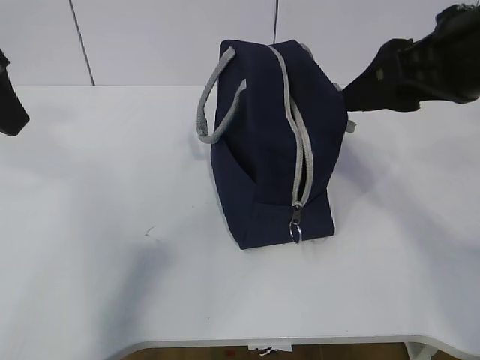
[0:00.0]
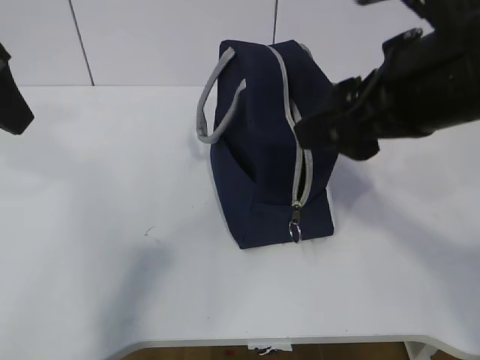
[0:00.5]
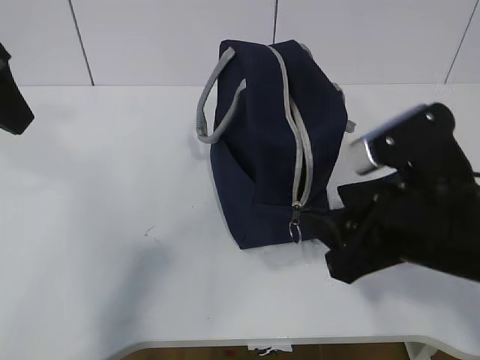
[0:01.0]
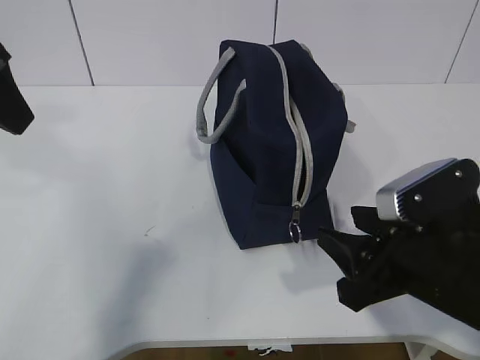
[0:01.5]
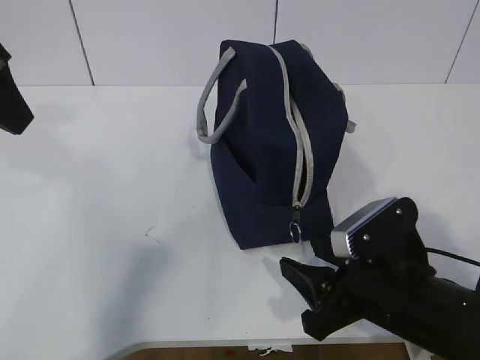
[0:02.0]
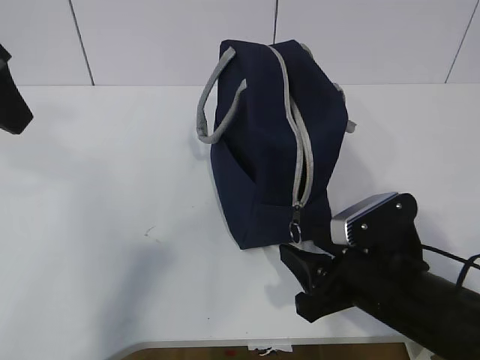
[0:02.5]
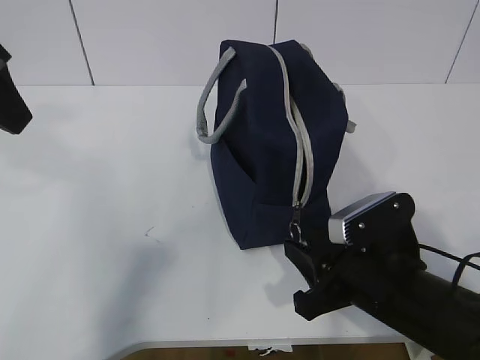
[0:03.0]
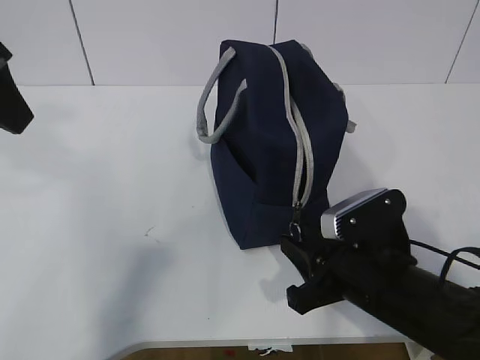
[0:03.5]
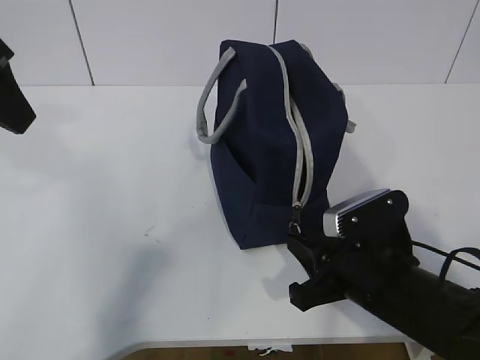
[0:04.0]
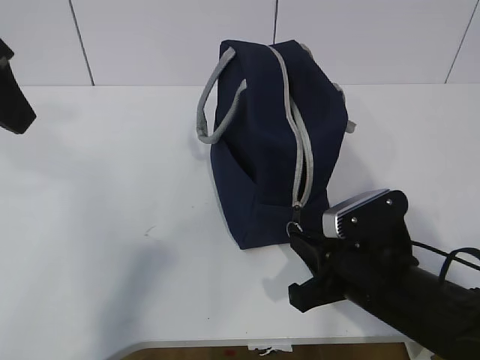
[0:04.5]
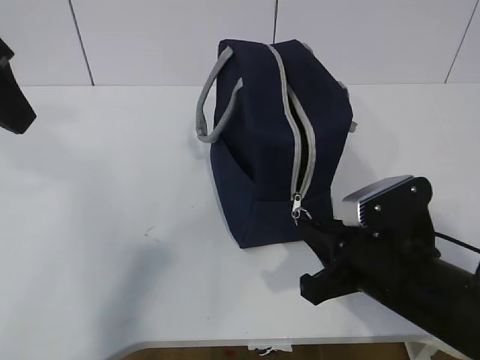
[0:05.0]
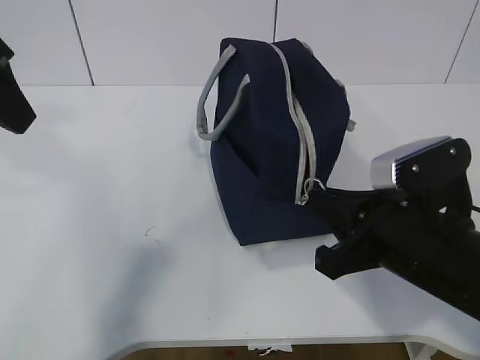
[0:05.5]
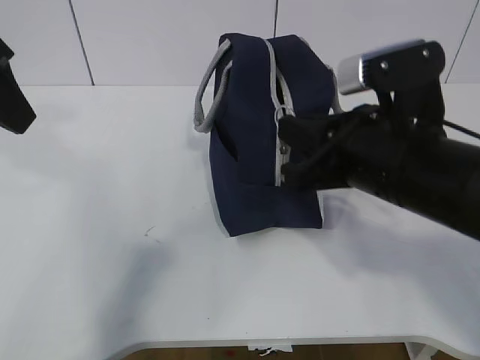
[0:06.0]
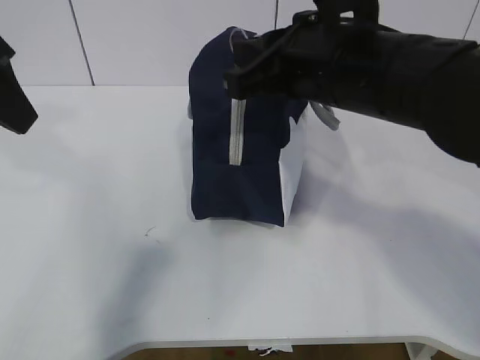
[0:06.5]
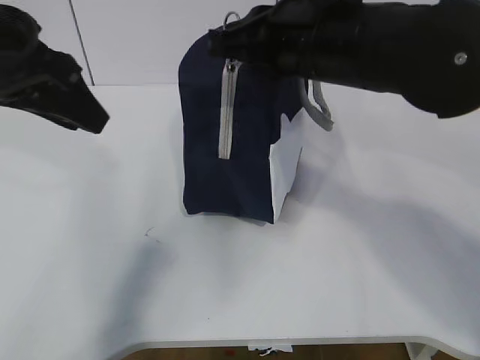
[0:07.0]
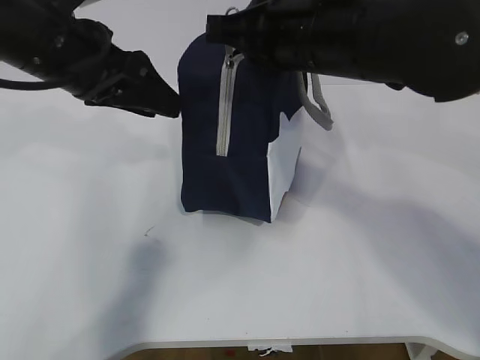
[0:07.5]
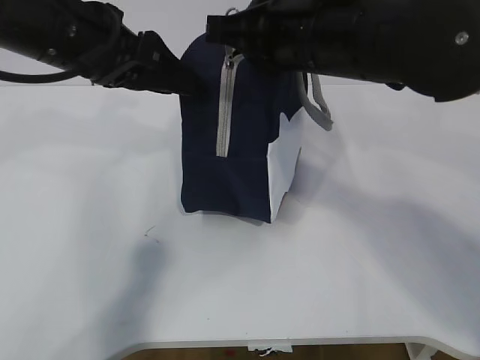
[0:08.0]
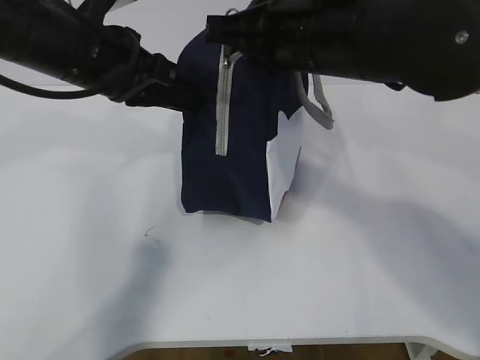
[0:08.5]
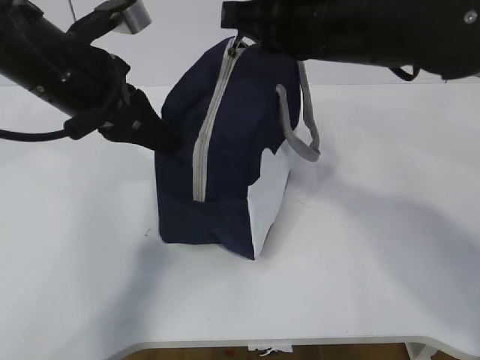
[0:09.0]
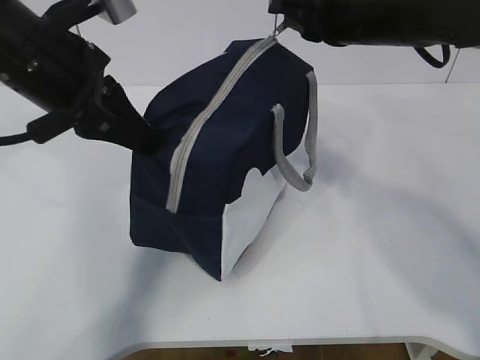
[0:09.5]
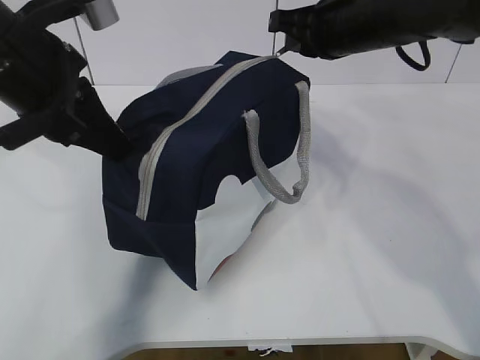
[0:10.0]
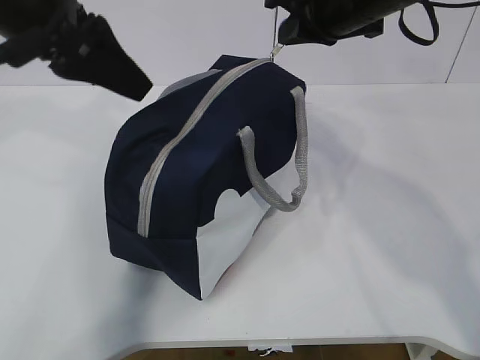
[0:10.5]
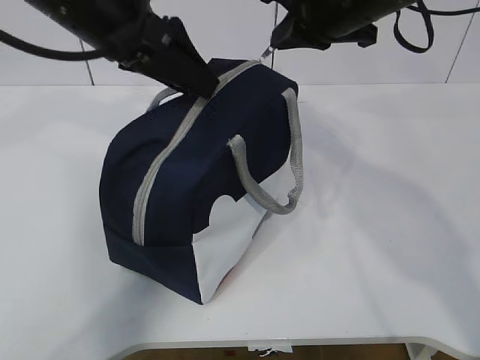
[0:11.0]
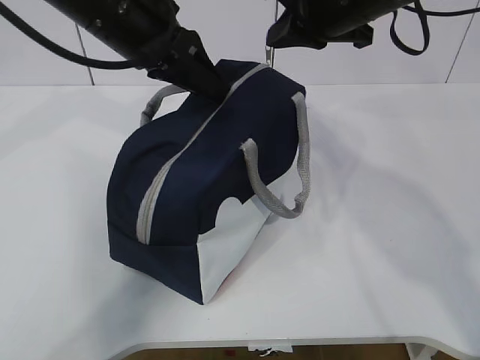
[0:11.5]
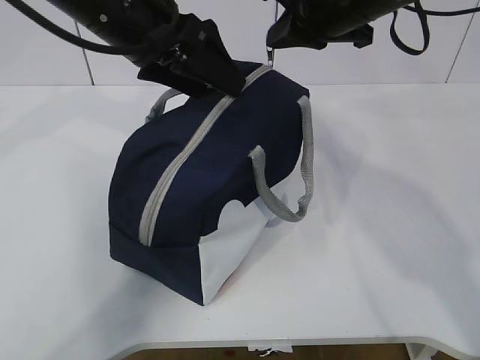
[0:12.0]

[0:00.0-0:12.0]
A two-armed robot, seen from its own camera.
Step, 0:04.0 to 0:07.0: Pull the zipper with your right hand.
Step, 0:07.5 to 0:08.0: Grab the lunch bag with your left hand.
0:00.0 to 0:02.0: The right gripper moves downward, roughly 20 cm.
0:02.0 to 0:04.0: The right gripper closes its fingers.
0:04.0 to 0:06.0: The right gripper goes some 15 cm upward.
0:06.0 to 0:08.0: The right gripper is displaced forward and upward by approximately 10 cm; the left gripper travels forward, to the right and downward by roughly 10 cm.
0:08.0 to 0:10.0: The left gripper closes up; the right gripper goes some 10 cm forward and to the right.
0:10.0 to 0:12.0: The left gripper heads to the right and forward, covering roughly 10 cm, and opens.

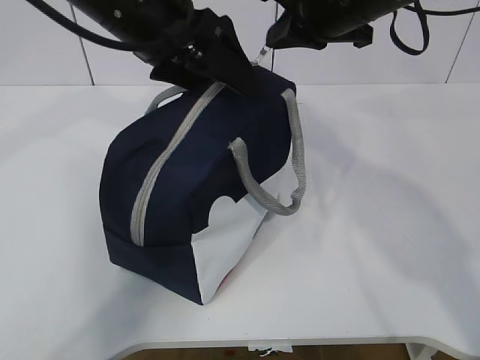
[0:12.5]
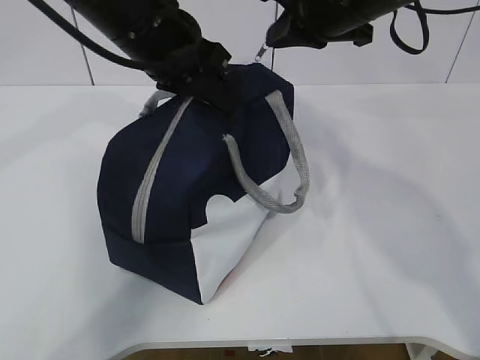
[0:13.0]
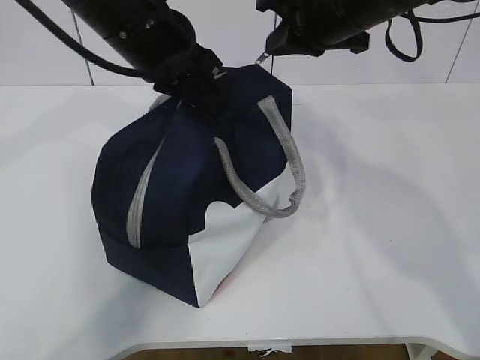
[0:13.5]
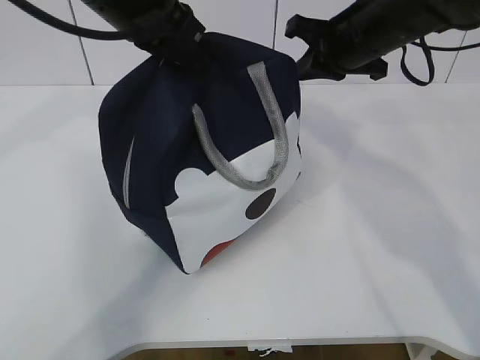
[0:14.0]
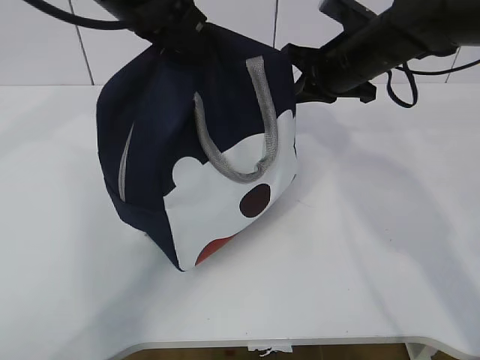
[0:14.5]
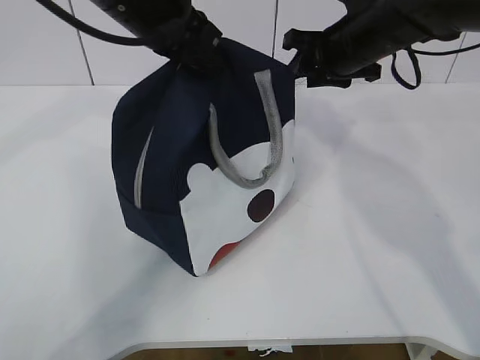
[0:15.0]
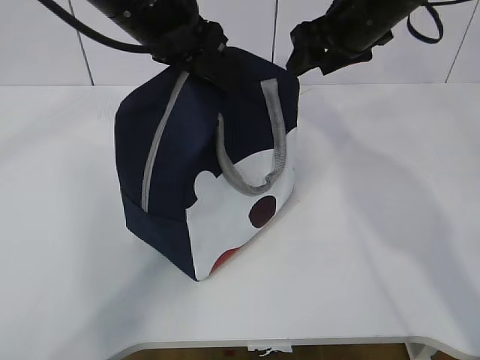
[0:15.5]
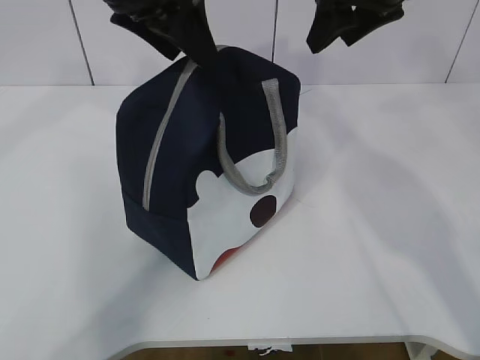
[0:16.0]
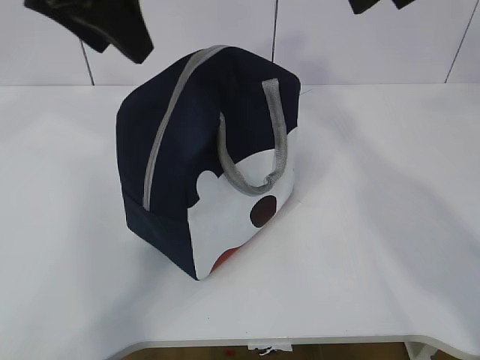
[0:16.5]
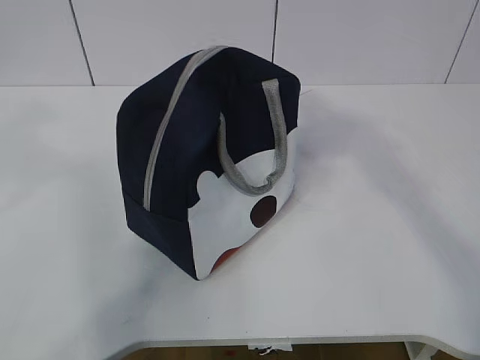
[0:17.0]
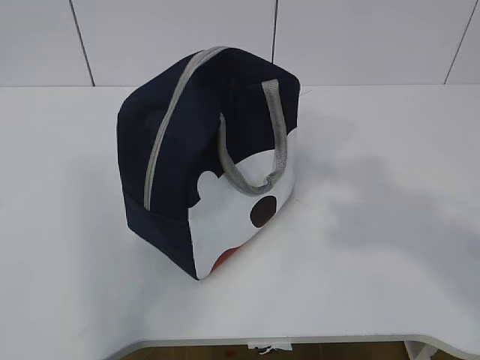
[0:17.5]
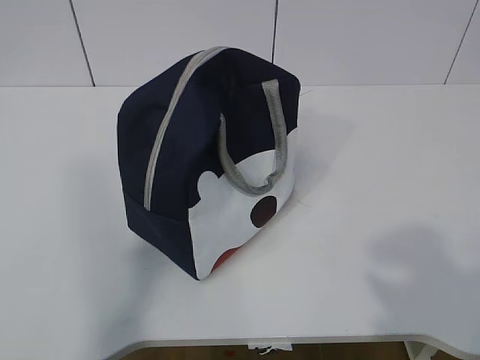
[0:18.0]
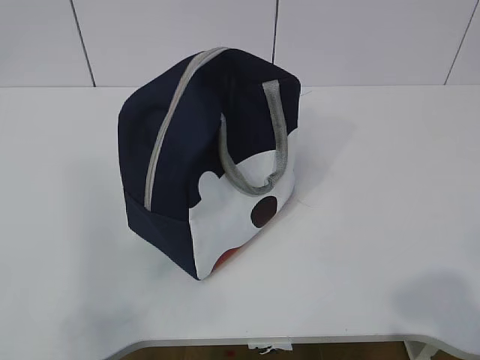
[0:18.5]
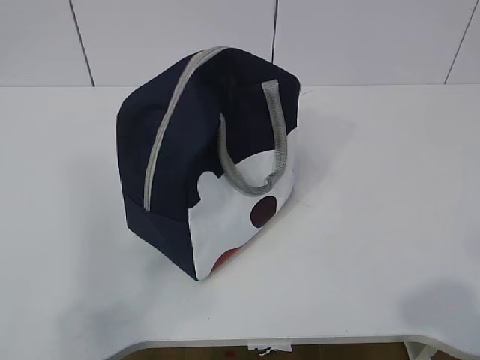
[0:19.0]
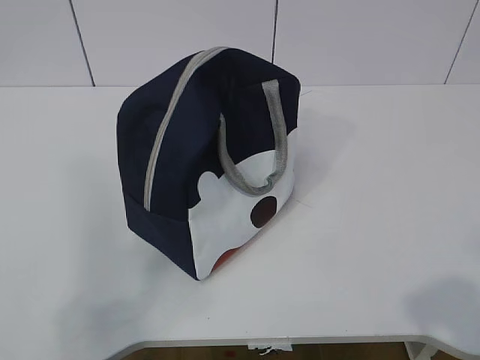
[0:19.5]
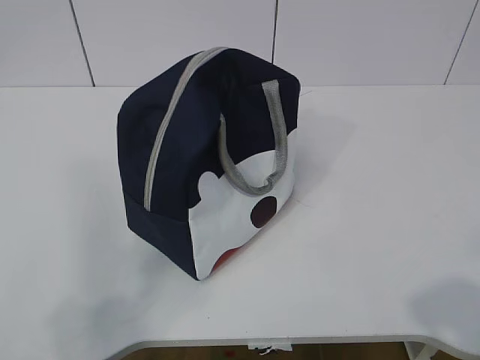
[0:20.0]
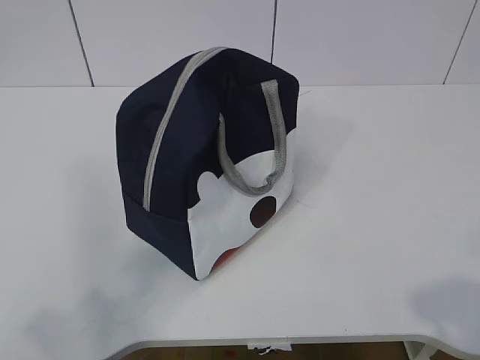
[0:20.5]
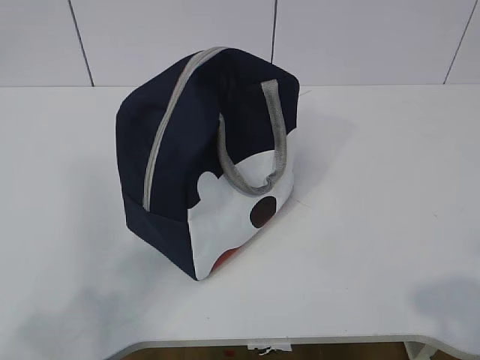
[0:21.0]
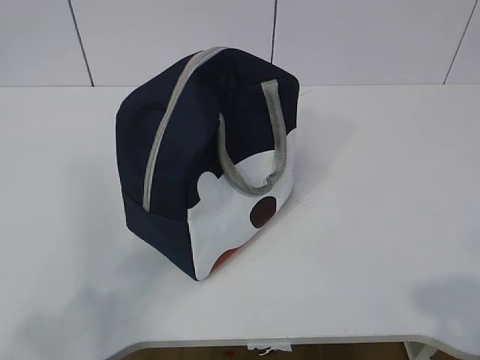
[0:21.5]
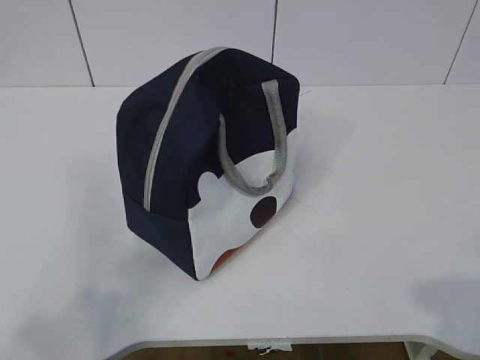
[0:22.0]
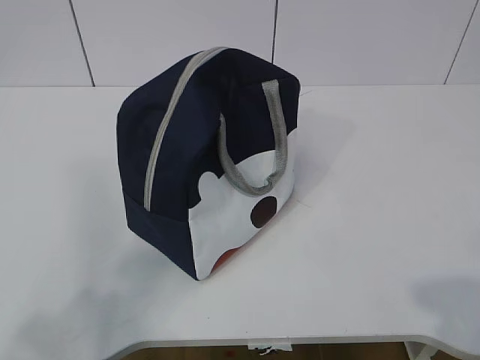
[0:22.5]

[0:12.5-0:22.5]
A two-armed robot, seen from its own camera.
0:12.5 to 0:14.5: The right gripper shifts approximately 10 cm downward. Meanwhile the left gripper closes.
0:14.5 to 0:16.5: The left gripper travels upward by approximately 5 cm, and opens; the right gripper shifts about 20 cm upward and backward, and opens.
0:16.5 to 0:18.5: The right gripper is displaced backward by roughly 40 cm; the left gripper travels backward and to the left by about 40 cm.

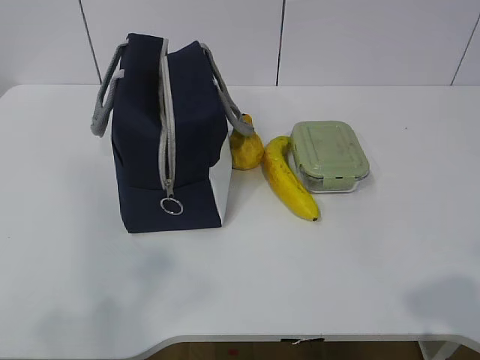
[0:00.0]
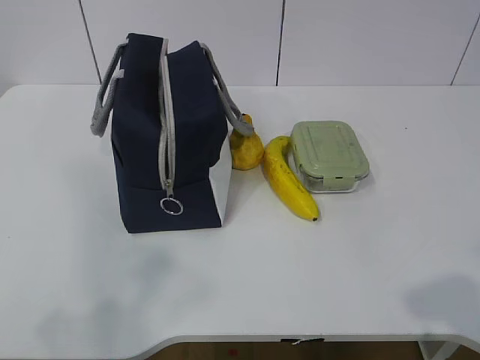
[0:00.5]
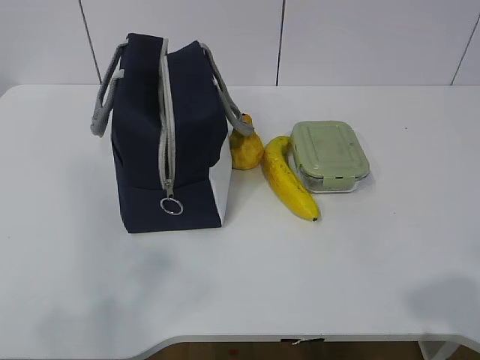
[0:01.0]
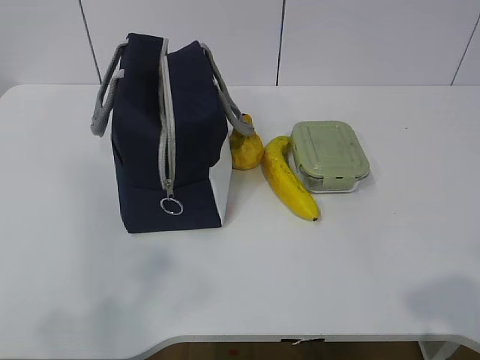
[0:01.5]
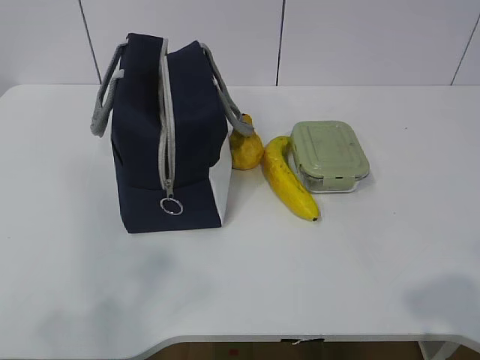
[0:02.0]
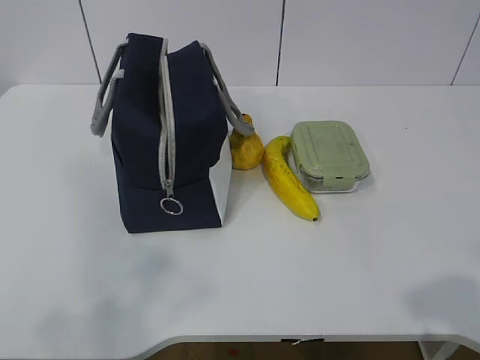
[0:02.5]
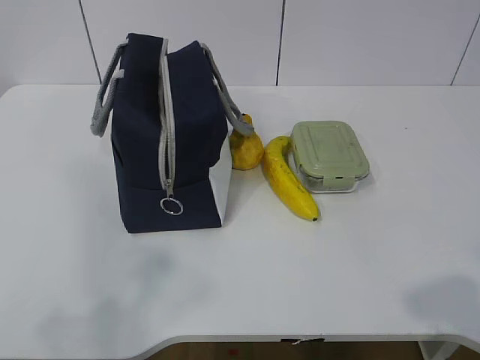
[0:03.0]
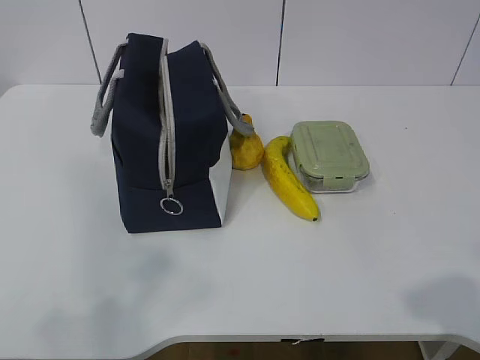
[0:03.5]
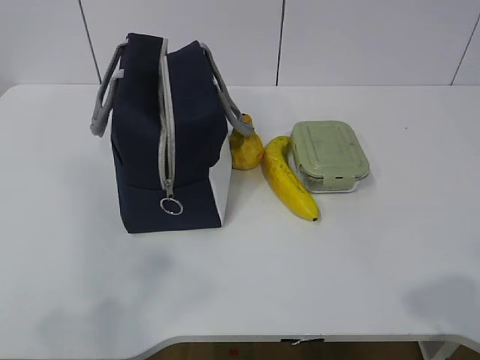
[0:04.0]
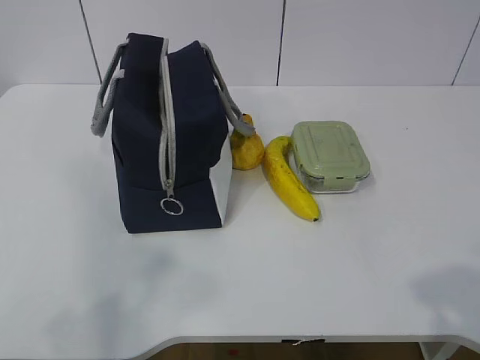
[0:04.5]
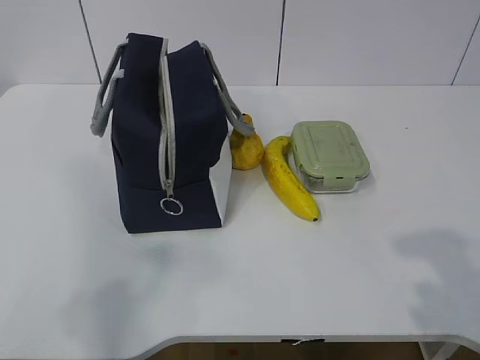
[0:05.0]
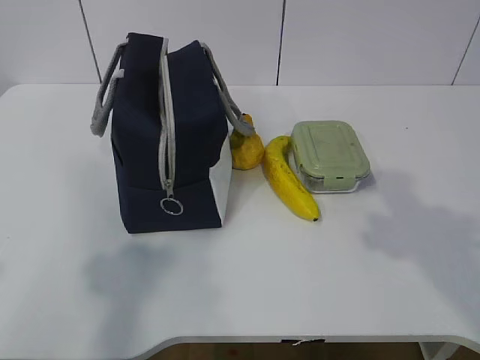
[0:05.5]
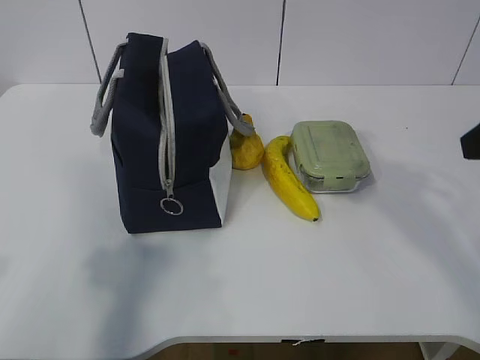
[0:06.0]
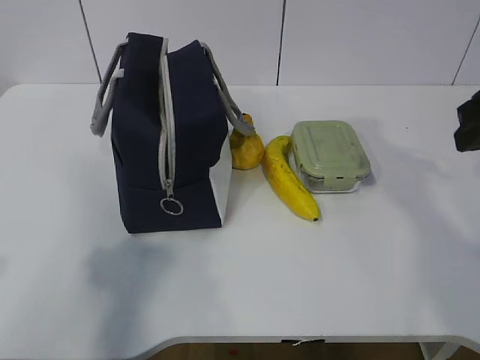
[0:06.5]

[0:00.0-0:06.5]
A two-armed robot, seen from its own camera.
0:04.5 to 0:06.5: The right gripper goes approximately 25 cm forward. The left gripper moves forward, approximately 10 cm.
